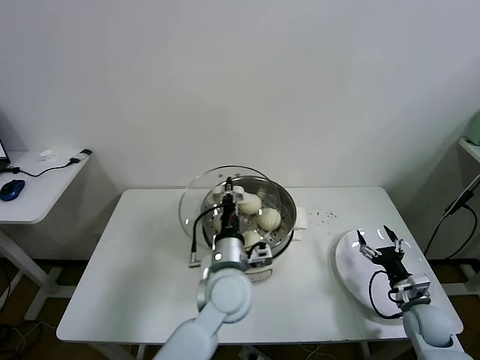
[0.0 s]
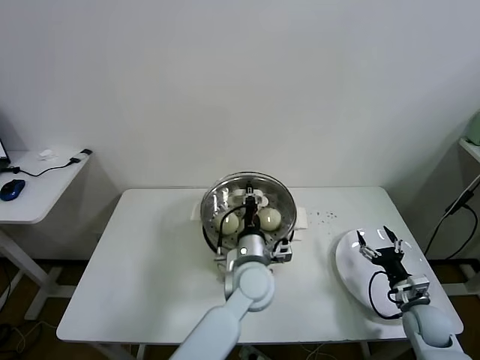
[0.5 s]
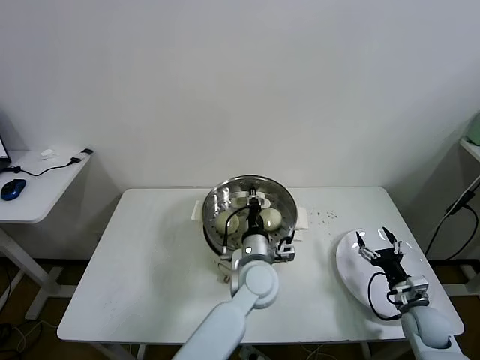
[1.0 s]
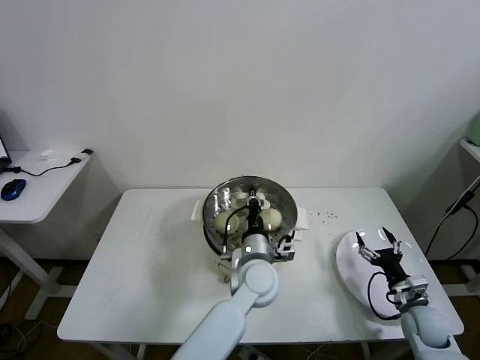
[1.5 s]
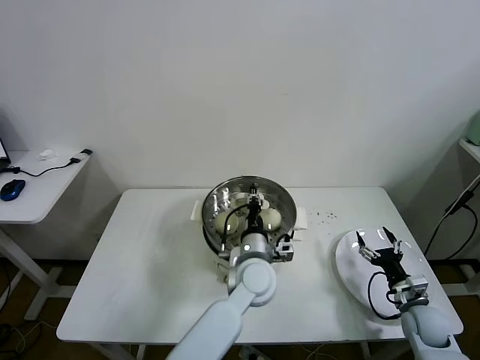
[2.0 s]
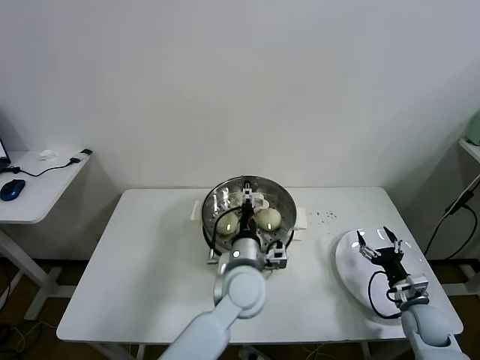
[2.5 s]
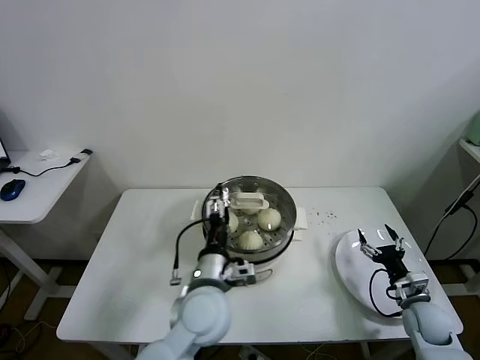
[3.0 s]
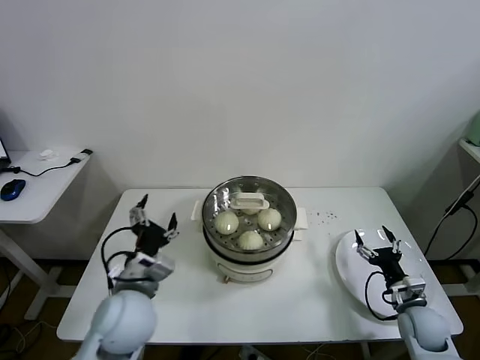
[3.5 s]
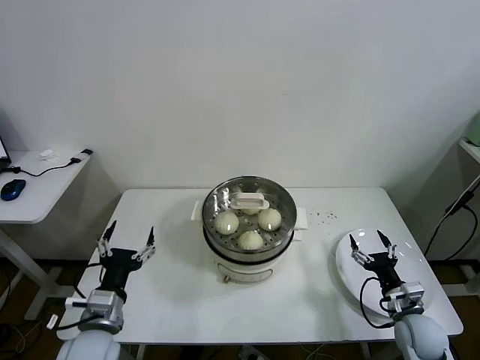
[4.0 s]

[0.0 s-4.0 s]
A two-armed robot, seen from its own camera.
Task of the whole recording: take steamed baozi put them in steamer.
Step, 0.0 to 2.5 s: Place the pot lid on the steamer with left gripper.
0.0 to 2.0 s: The left gripper travels to the right by roughly 5 cm.
2.0 to 4.0 s: The left gripper shifts about 30 cm to the left and backward, and opens its fingers.
